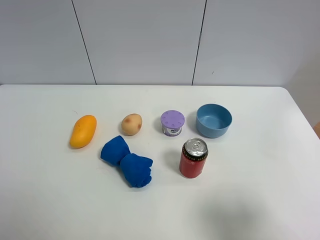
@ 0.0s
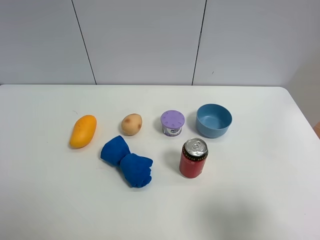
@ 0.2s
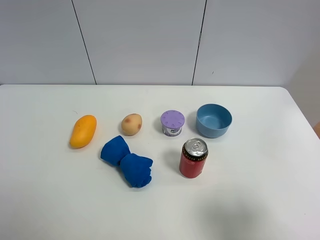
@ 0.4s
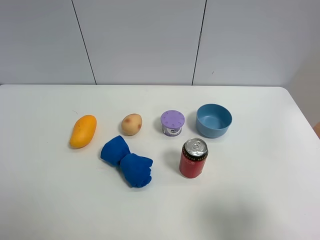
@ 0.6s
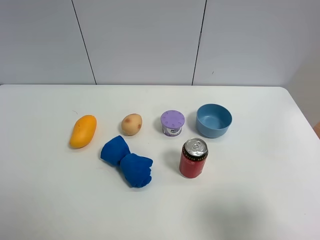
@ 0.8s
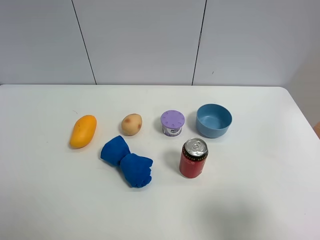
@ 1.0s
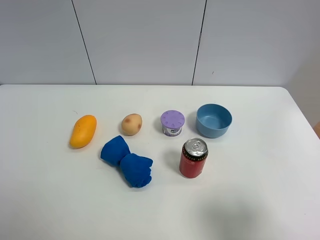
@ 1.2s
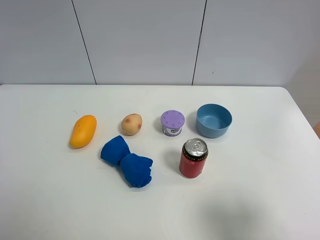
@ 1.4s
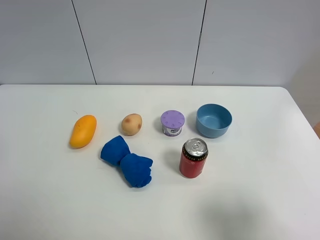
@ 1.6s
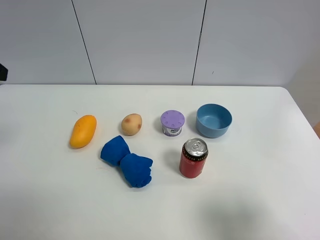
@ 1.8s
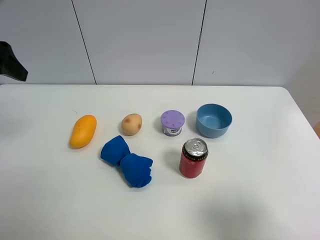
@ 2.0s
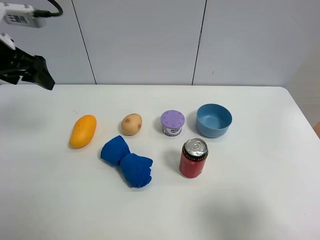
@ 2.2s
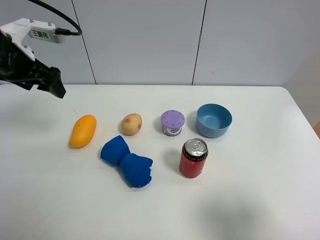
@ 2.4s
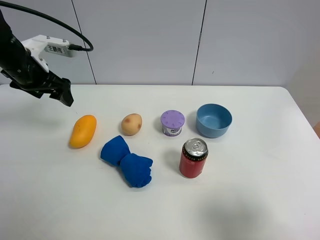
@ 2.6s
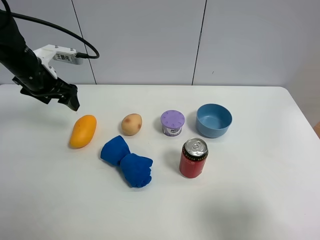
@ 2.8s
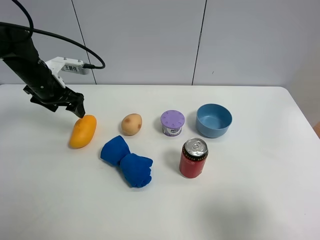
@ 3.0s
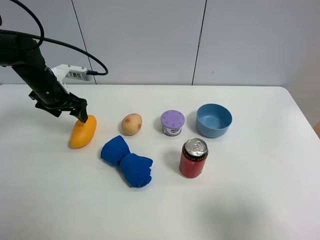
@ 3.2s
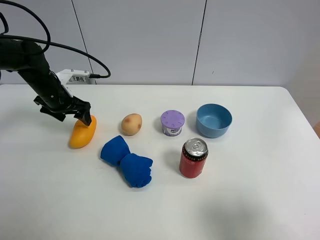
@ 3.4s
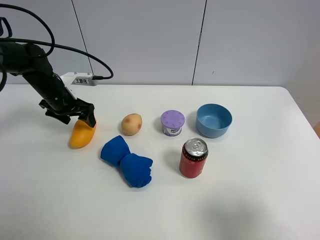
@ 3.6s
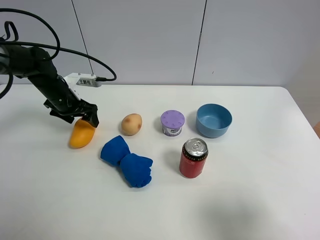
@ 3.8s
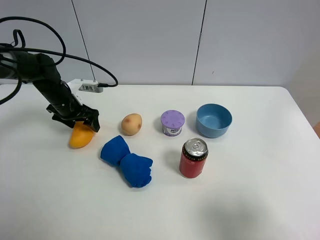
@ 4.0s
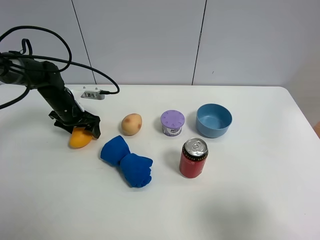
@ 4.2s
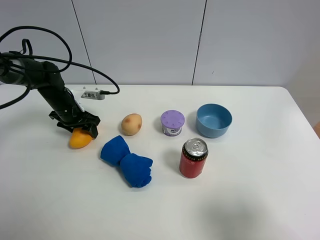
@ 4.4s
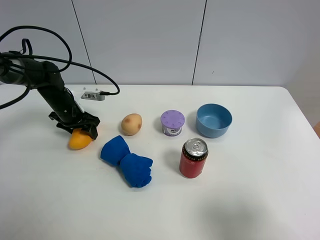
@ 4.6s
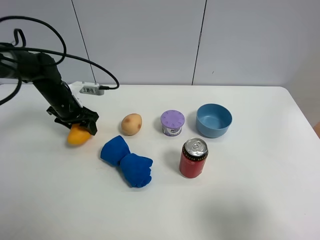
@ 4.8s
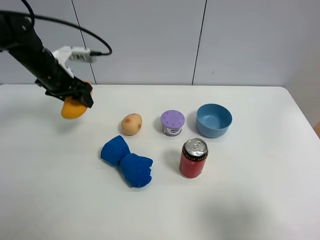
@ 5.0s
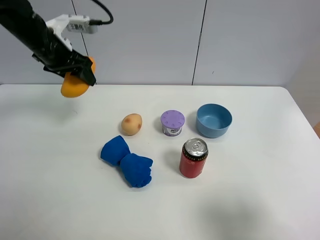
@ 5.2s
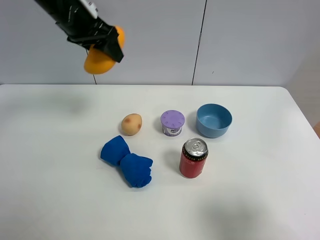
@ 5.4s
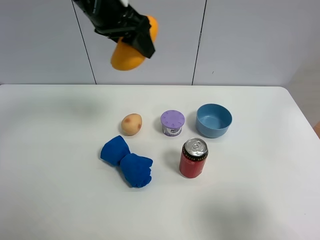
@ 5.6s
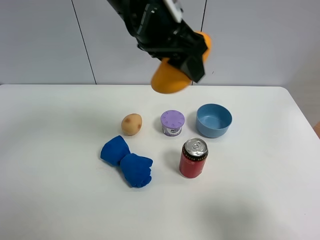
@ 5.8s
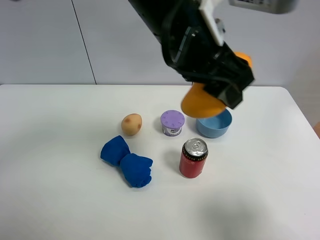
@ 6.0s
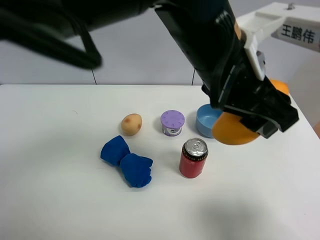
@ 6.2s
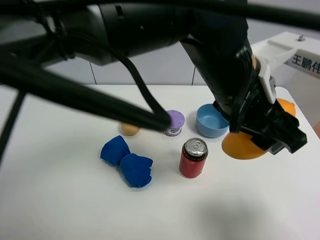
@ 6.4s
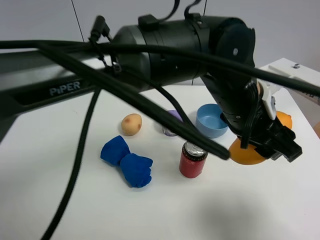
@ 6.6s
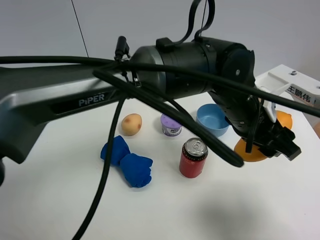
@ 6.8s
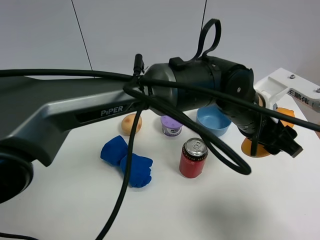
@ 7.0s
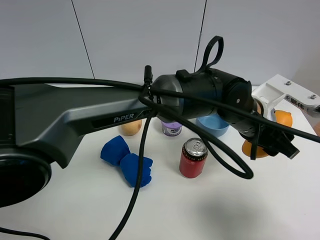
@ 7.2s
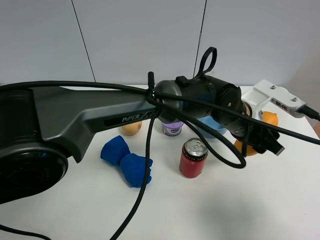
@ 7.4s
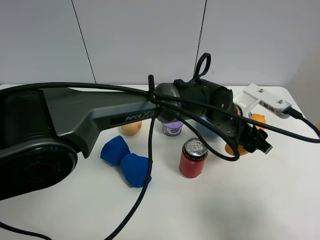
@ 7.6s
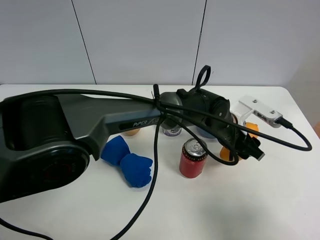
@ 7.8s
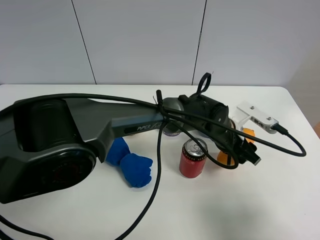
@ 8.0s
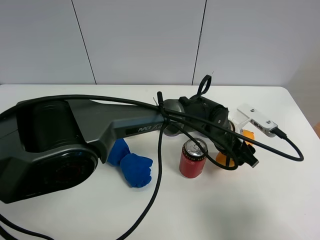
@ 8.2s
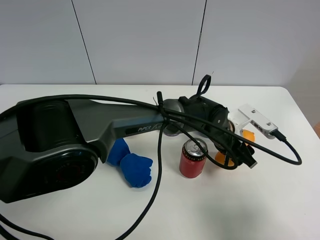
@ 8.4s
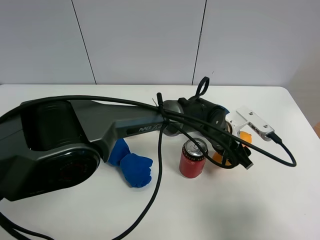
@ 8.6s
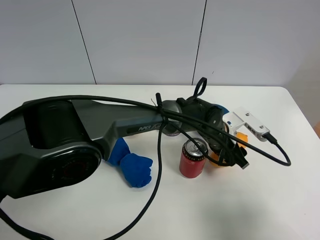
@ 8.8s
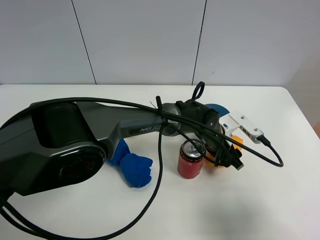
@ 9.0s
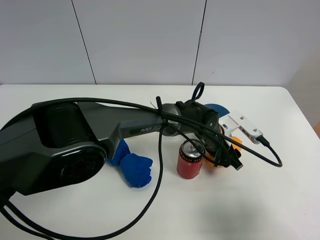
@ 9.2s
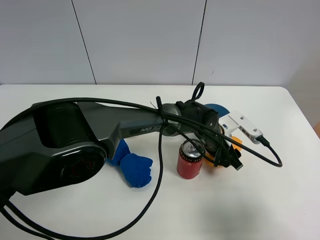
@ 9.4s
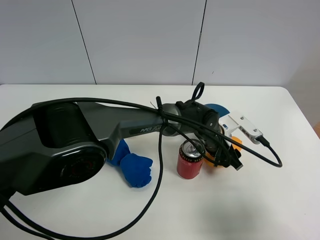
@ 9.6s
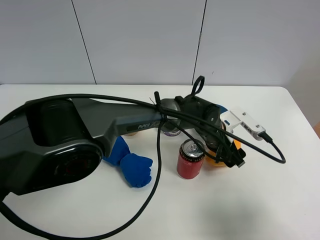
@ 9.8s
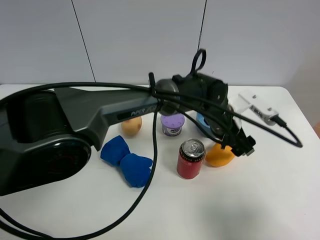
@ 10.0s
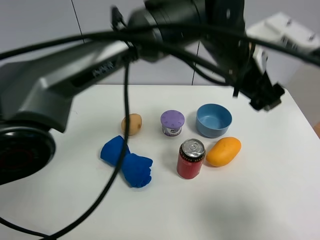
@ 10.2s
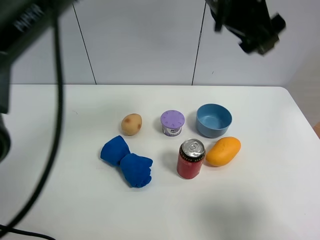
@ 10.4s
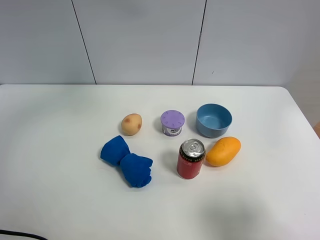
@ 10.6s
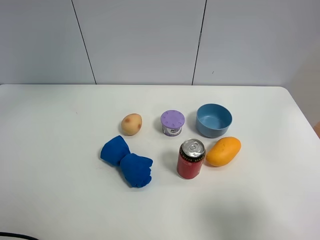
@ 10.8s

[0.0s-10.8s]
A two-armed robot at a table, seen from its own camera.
Task of the whole recording: the gripper move the object.
Step, 0.0s to 4.4s: Grasp the mango with the left gripper.
Step, 4.6s to 10.0s: Place the mango on the table with the left gripper.
1.6s to 3.0s: The left gripper shifts approximately 30 cm forward and downward.
3.0s to 4.6s: The left gripper shifts approximately 10 cm downward, and closes up.
4.6s to 6.2s: The left gripper heads to the right, upward and backward, covering approximately 50 cm.
6.2s to 7.8s: The left gripper heads downward, covering some 20 cm.
7.8s to 9.2s: The left gripper is displaced downward by some 5 cm.
9.2s to 10.8s: The left gripper is displaced upward and to the left by roughly 50 cm, and opens.

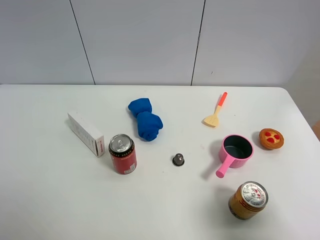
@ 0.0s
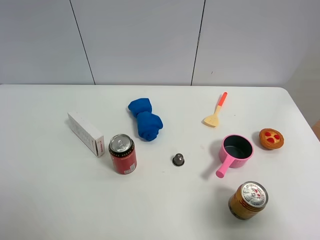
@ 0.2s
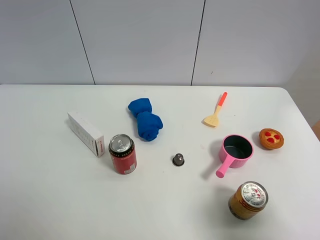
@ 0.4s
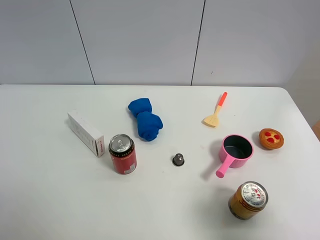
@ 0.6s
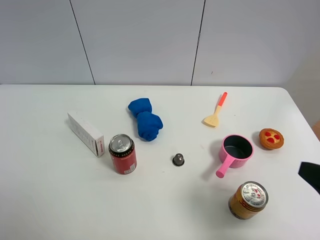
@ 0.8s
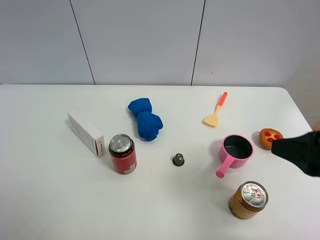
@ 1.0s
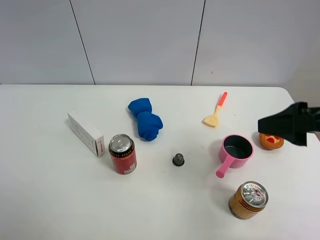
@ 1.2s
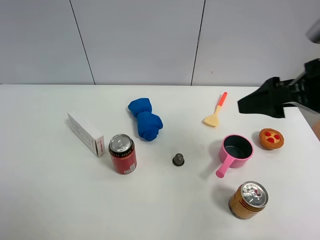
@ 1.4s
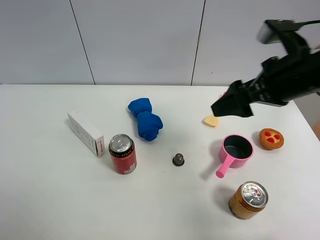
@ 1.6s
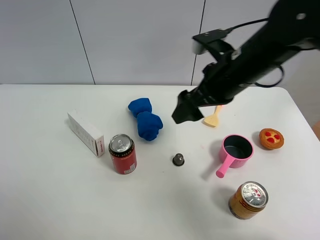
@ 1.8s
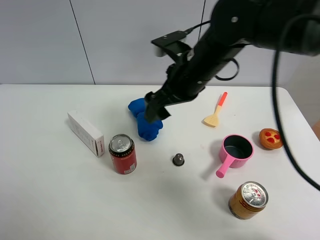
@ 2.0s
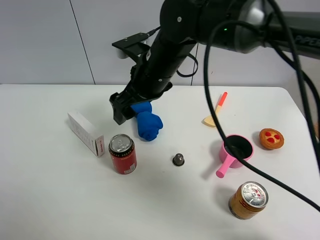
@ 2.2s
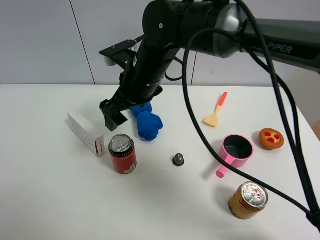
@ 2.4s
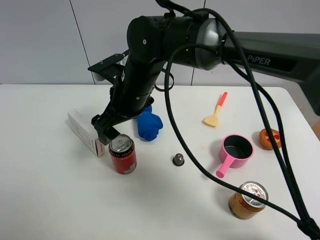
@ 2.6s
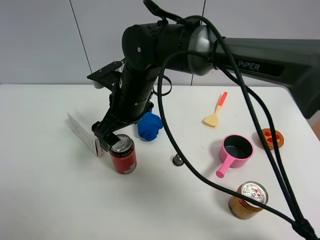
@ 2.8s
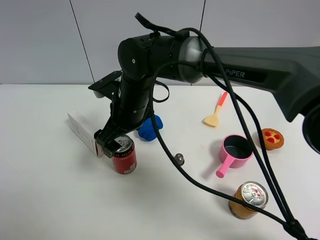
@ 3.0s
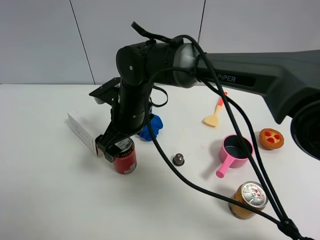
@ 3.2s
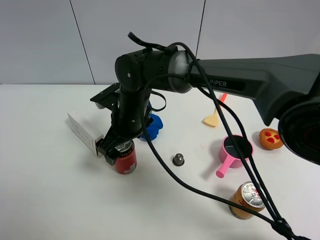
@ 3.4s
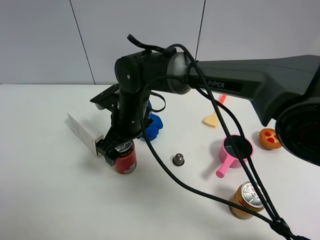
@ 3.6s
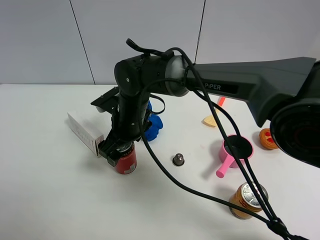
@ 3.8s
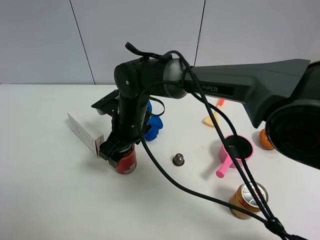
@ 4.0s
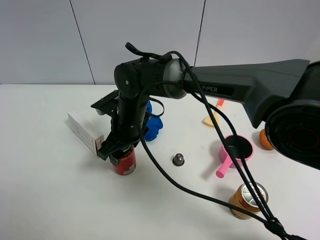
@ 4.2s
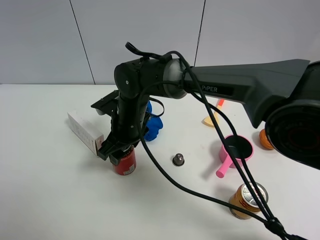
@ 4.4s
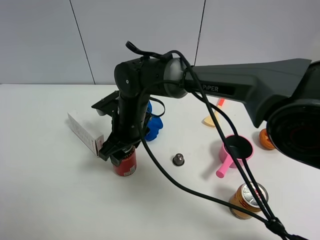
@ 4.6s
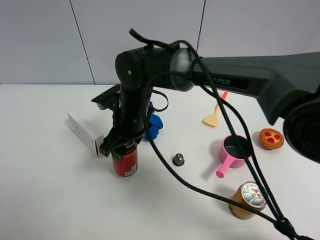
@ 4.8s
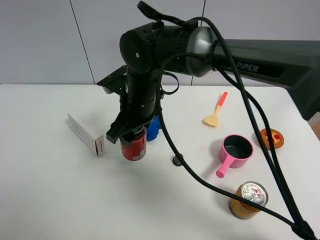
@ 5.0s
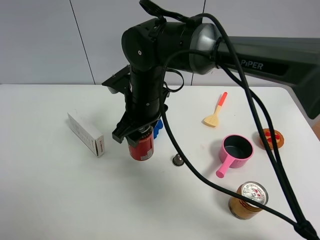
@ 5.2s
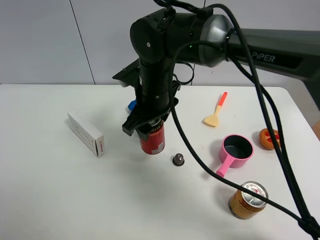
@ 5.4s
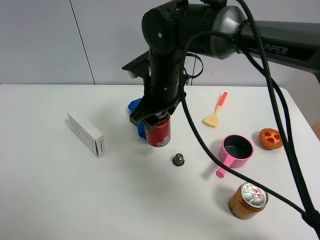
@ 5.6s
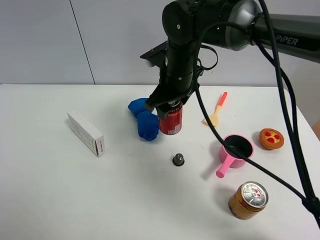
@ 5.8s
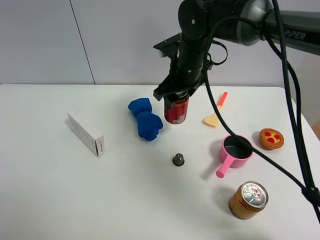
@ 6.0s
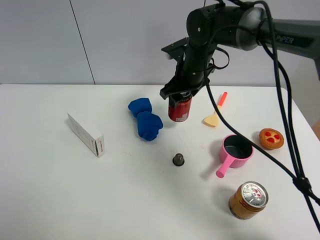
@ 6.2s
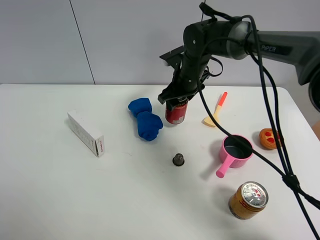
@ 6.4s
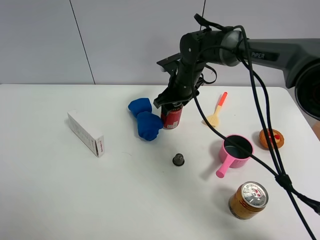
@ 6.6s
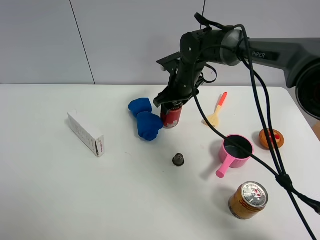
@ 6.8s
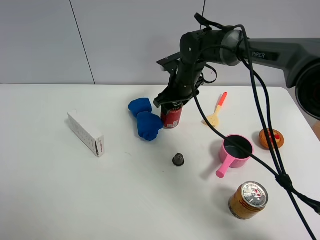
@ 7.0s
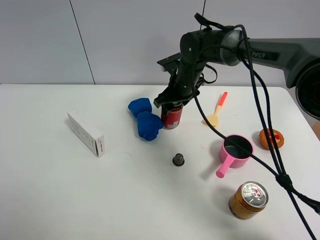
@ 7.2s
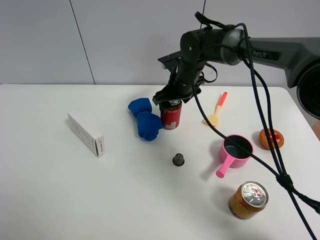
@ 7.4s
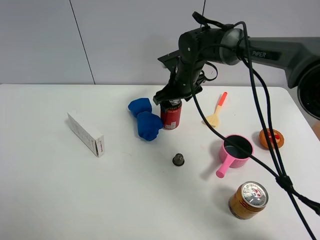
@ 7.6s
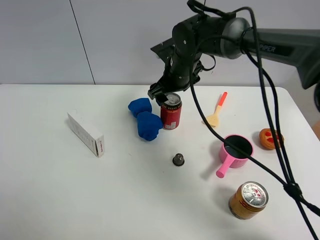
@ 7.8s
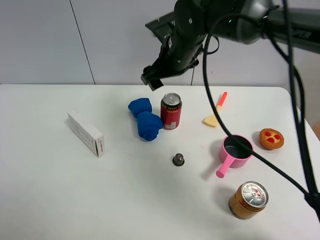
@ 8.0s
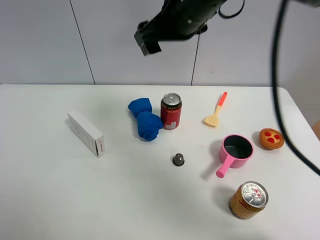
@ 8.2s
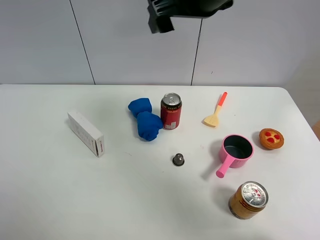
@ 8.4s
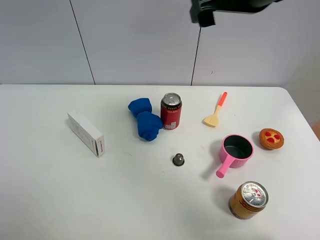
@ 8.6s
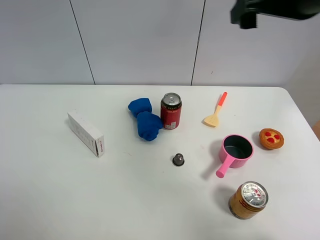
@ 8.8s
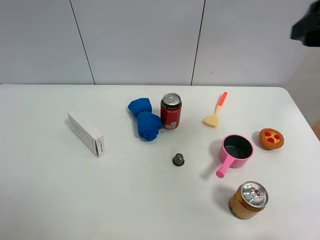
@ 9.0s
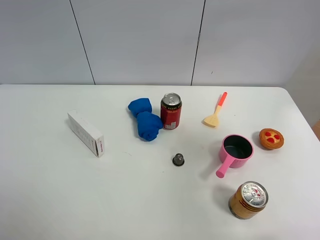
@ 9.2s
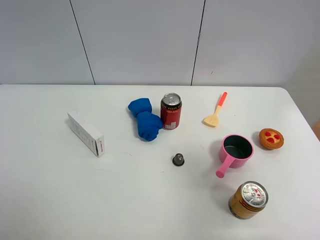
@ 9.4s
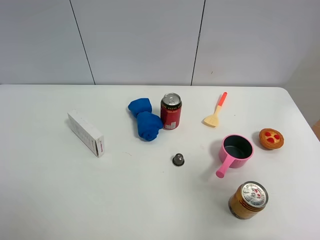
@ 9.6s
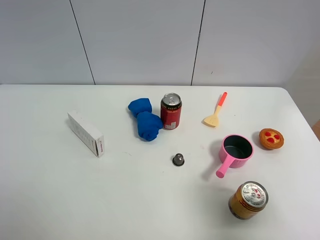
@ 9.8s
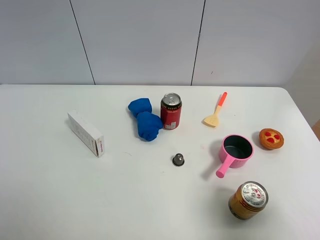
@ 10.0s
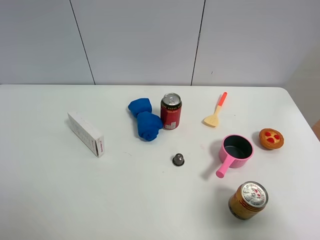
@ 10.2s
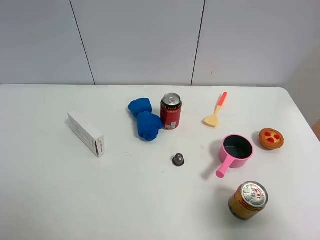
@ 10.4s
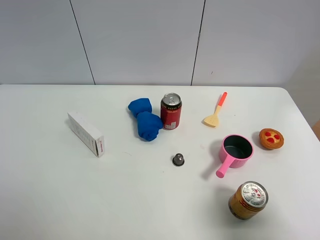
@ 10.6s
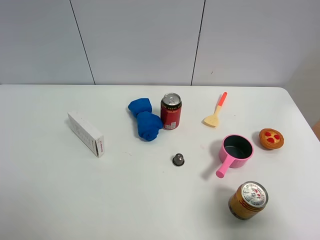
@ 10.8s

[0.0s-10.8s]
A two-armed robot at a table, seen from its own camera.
Task of the whole recording: the gripper move the object.
Step, 0.0s to 4.0s: Grasp the Jia Duo Bao with the right gripper.
Step, 4.2s to 7.2s: Place the Jia Duo Bao on the table with the right gripper.
0.0s to 1.6s: The right gripper travels forward and to the left by some 25 cm.
1.6s to 3.0s: The right gripper travels to the left and downward by roughly 25 cm.
3.0s to 4.6s: The right gripper closes its fingers.
4.6s to 6.2s: The right gripper goes approximately 15 cm to the right and forward.
6.2s to 7.8s: The right gripper opens up.
7.8s to 9.2s: The right gripper moves backward, to the right and upward, approximately 40 cm, and opens up.
9.2s to 10.8s: The right gripper is displaced backward and downward by approximately 20 cm.
